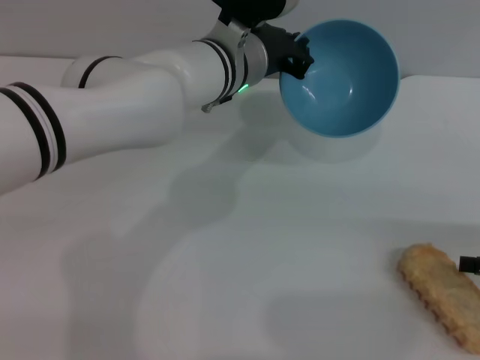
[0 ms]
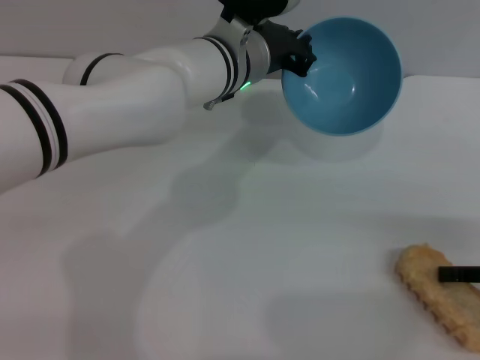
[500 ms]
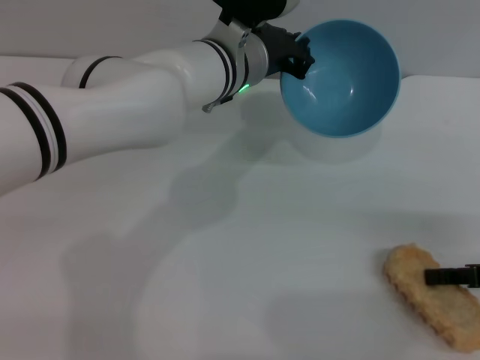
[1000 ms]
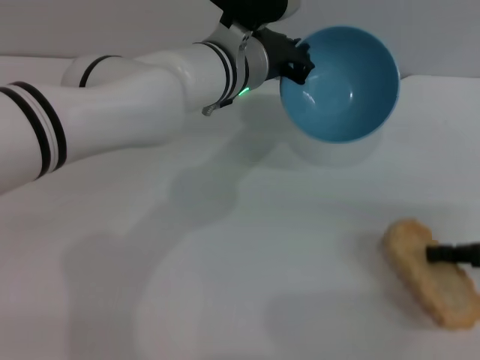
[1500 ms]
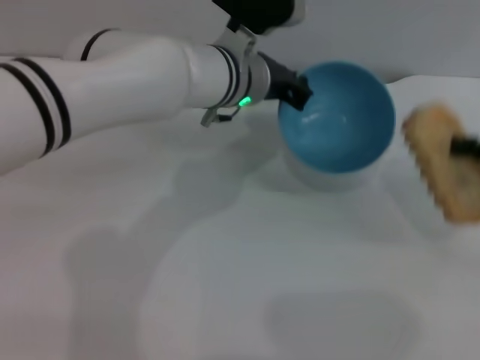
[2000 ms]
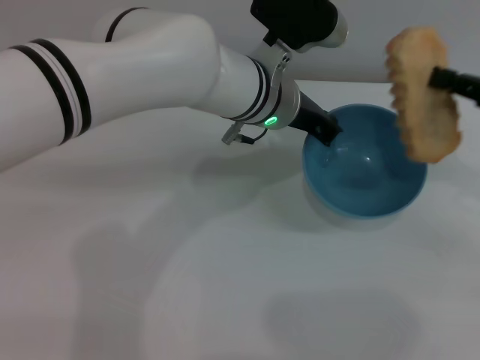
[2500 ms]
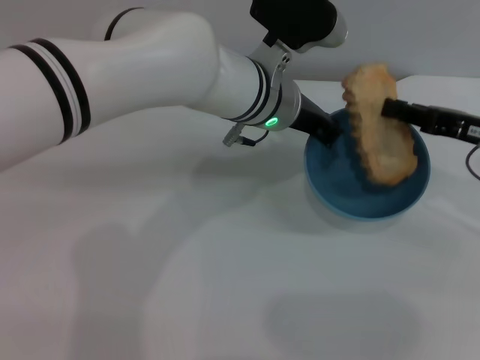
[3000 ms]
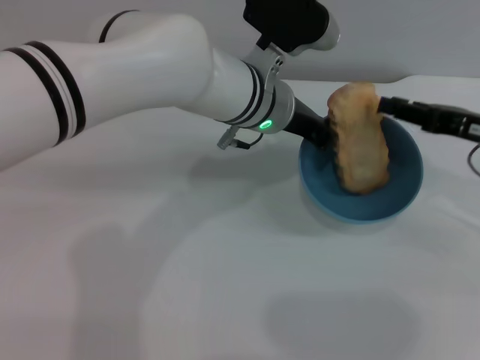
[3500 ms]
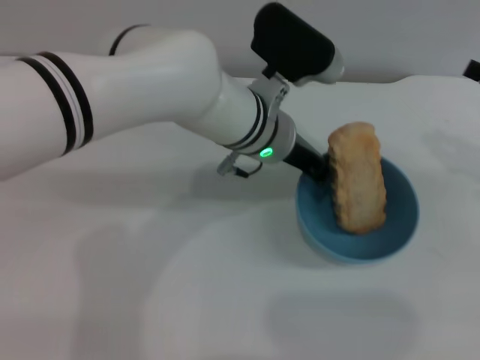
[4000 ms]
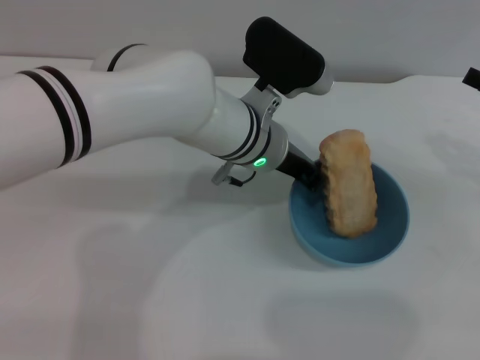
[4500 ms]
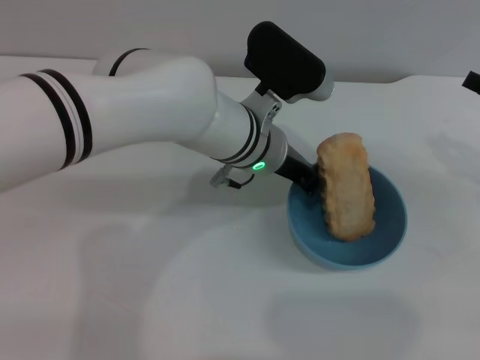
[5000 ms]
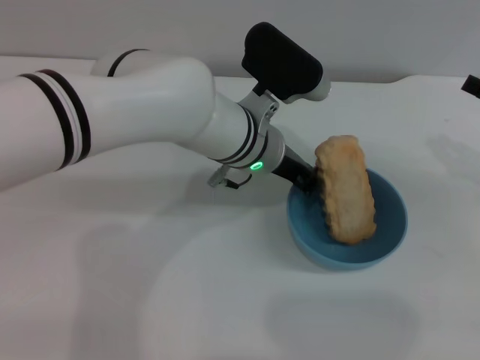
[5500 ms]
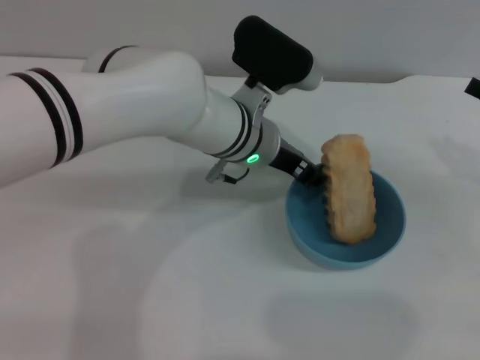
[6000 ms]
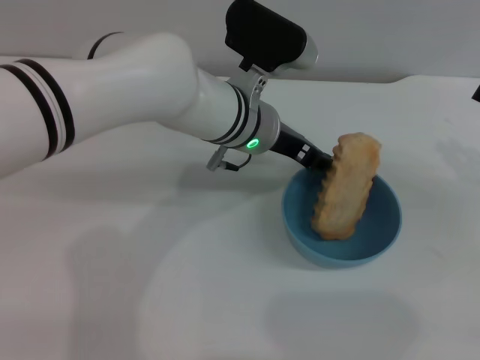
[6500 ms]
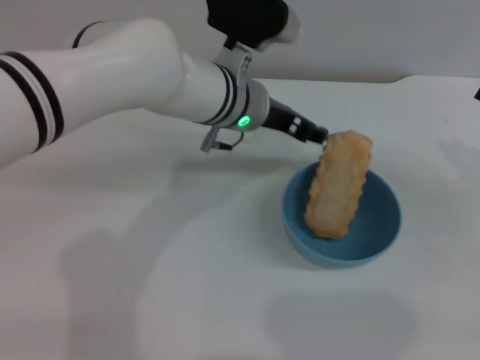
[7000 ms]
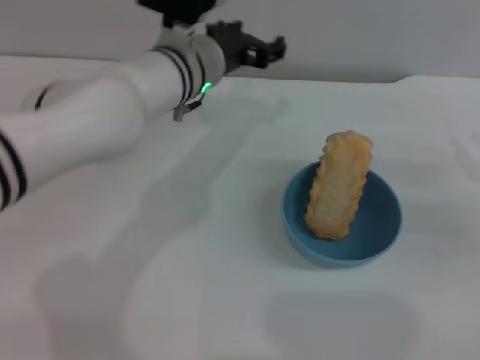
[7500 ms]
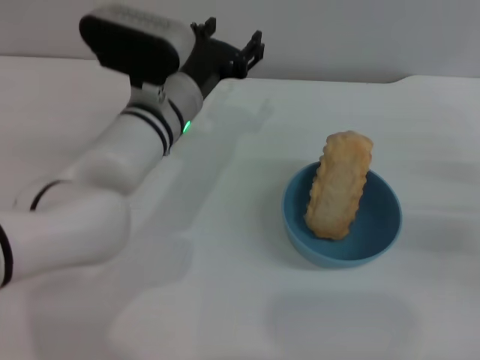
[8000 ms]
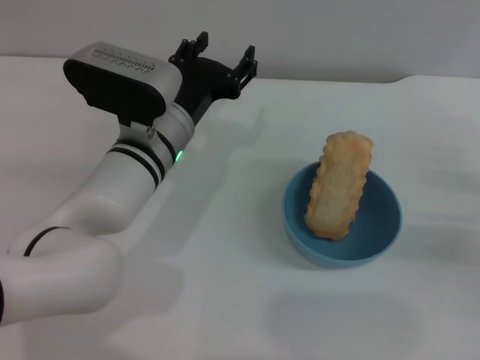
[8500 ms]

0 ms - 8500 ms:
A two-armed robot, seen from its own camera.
Task of the whole recording: put the bread into the blue bowl and pour it out repeatedly.
Step, 0 ms - 2000 ms: Pick up the bread with the right gripper.
Step, 2500 ms - 3500 ms: Place the bread into the bowl.
Step, 4000 ms - 7000 ms: Place the bowl on the table.
0 ms - 2000 ms: The right gripper shifts about 10 cm upward and forward, and closes up.
4000 ms - 6500 ms: The left gripper opens.
6500 ms - 8500 ms: The right gripper moves downward, approximately 5 cm, and opens, while the left gripper travels to the left by approximately 10 cm.
